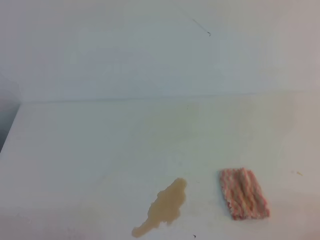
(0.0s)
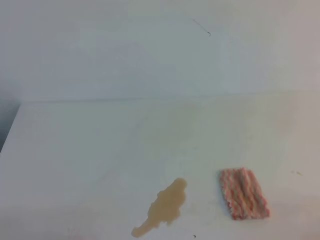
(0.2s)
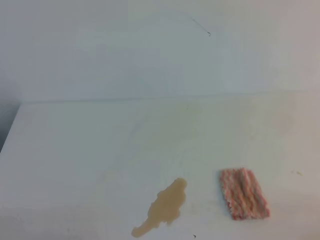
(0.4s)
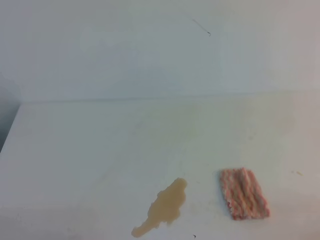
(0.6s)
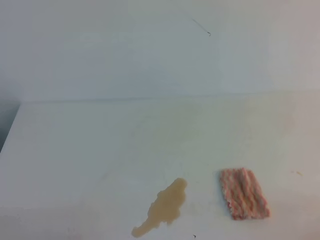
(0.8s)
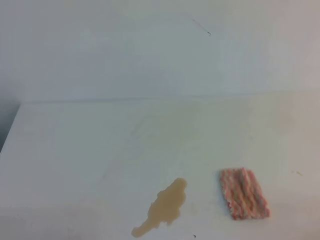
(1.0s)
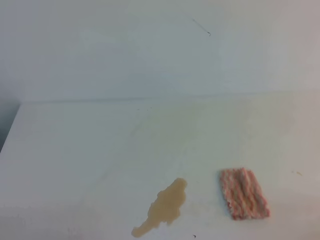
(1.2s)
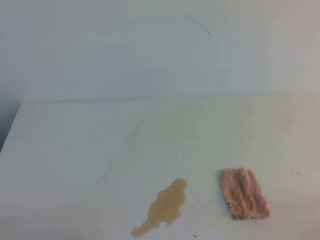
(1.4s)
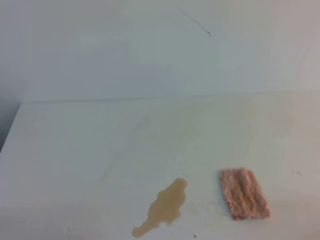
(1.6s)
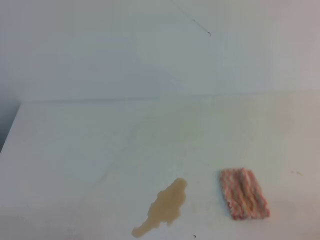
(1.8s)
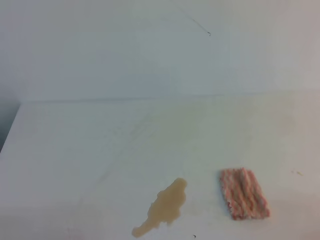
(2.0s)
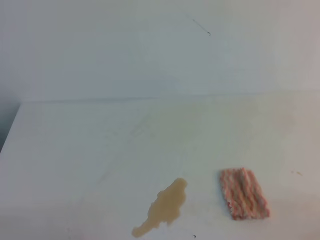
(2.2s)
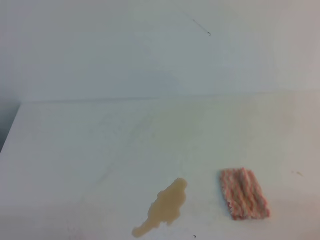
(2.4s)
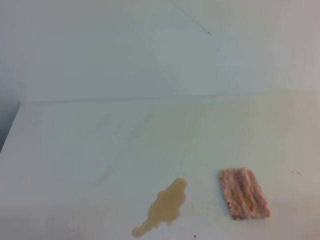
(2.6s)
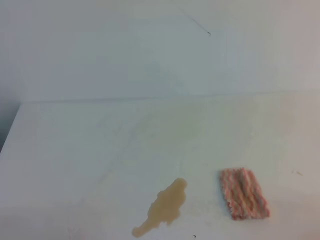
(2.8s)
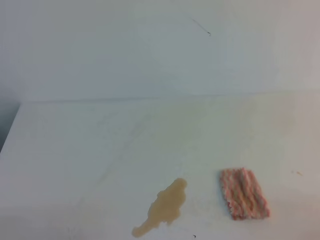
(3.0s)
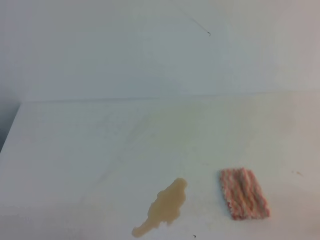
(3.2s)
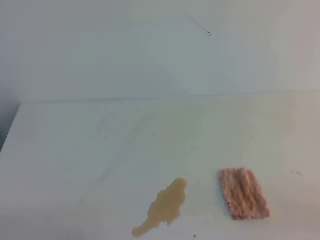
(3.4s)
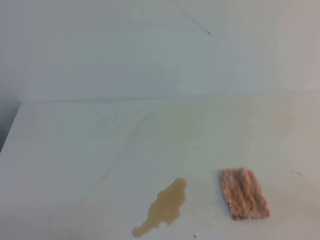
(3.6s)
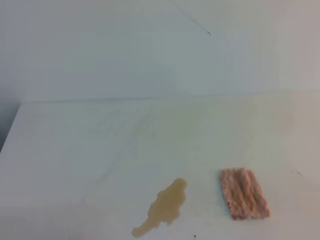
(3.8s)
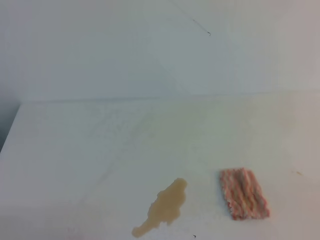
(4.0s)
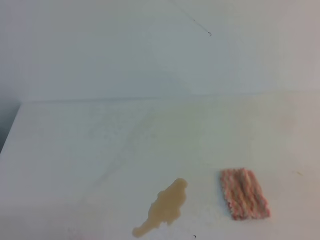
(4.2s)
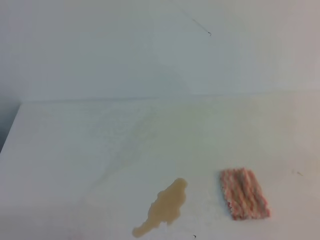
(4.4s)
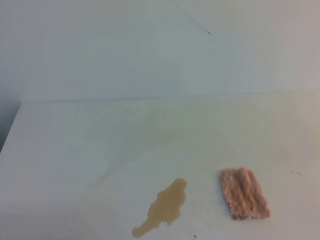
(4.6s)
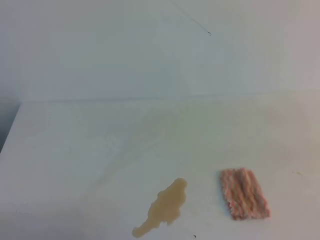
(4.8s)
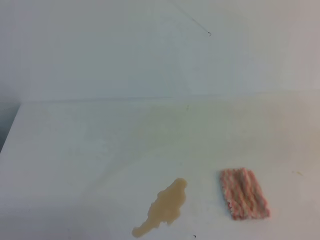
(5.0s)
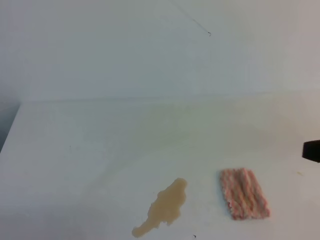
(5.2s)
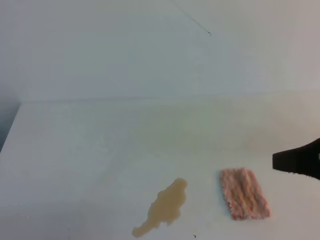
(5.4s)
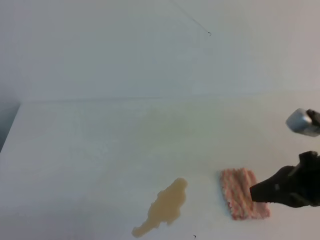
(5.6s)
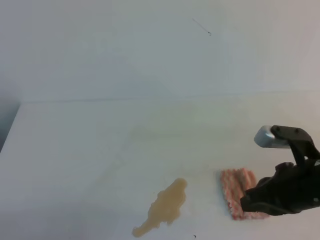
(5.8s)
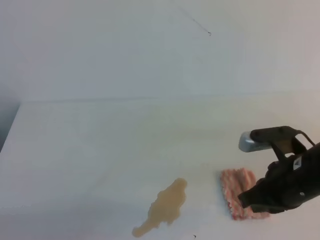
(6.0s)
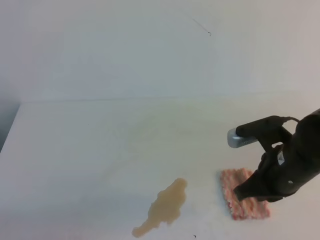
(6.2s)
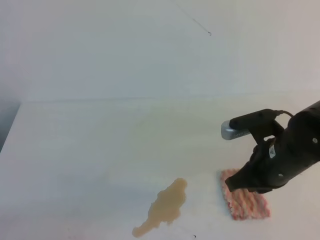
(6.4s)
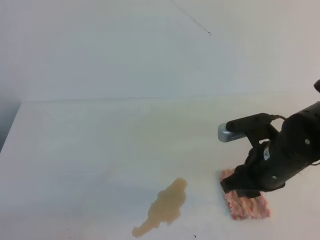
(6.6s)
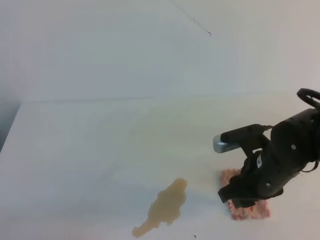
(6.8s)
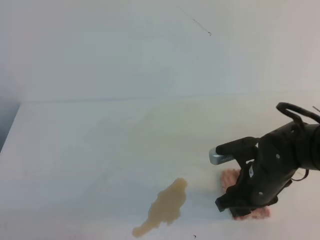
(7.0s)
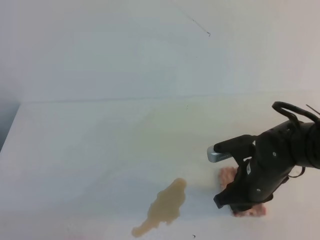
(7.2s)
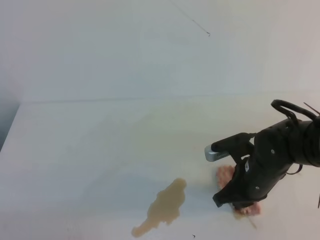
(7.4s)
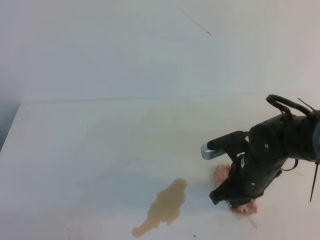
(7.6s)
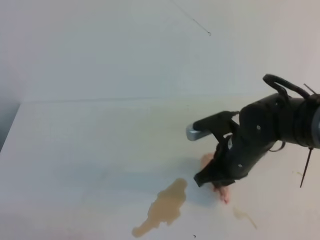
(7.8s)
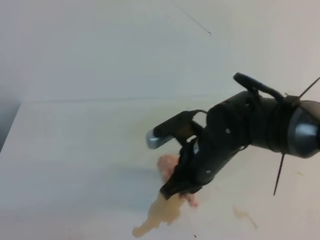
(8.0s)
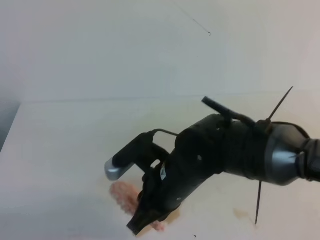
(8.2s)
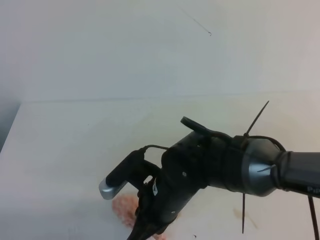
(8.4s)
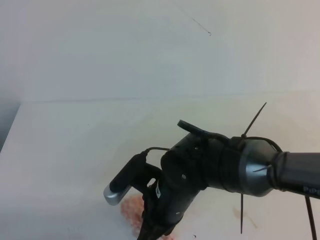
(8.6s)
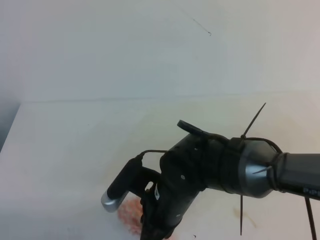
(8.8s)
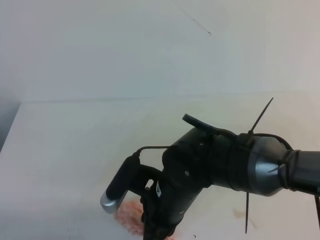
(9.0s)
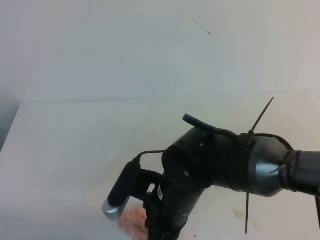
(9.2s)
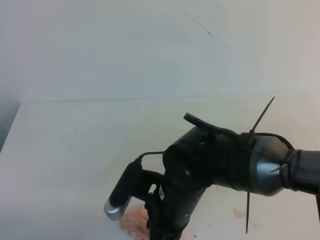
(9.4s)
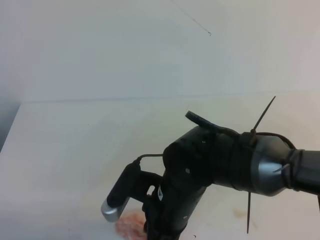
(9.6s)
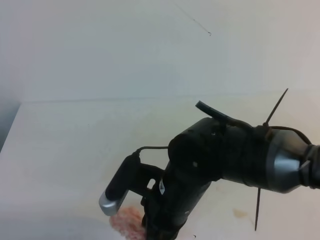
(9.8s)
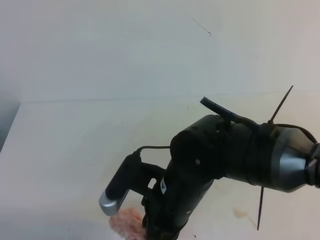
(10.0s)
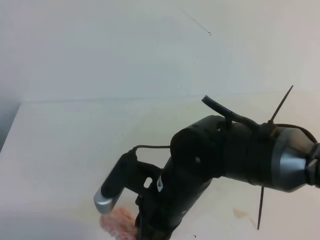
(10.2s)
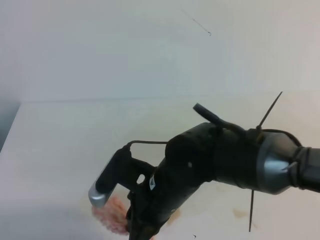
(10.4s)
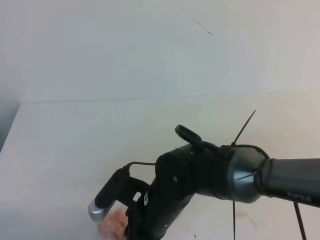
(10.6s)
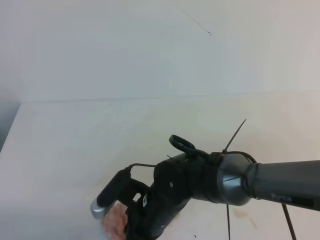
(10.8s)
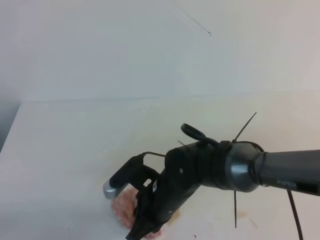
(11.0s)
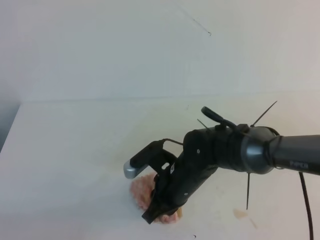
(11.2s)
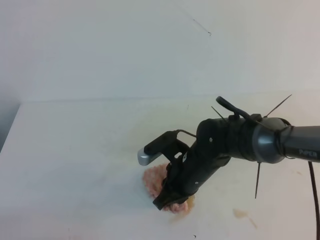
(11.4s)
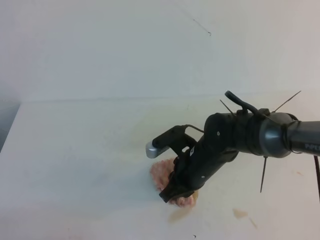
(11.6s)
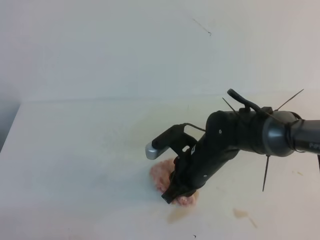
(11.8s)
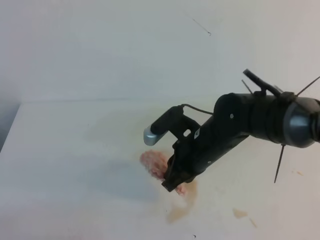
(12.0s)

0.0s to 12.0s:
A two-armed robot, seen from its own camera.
0.0s to 3.0s: Neither gripper changes place.
4.4s to 6.0s: The right gripper goes roughly 25 cm forward, to the left and downward.
6.0s to 7.6s: The right gripper travels downward, forward and to the left by roughly 10 cm, and opens and closes again.
7.6s to 9.0s: The right gripper moves to the left, backward and upward, about 15 cm.
9.0s to 10.4s: There are only small adjustments of the grippers.
10.4s to 12.0s: The right gripper travels forward and to the right by some 10 cm.

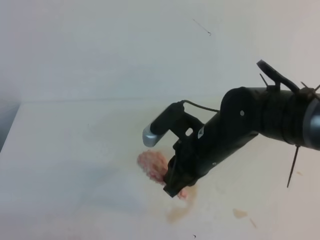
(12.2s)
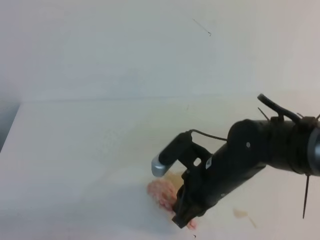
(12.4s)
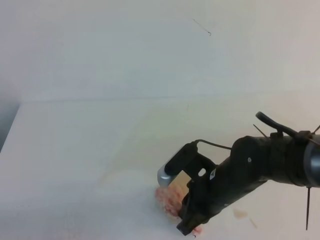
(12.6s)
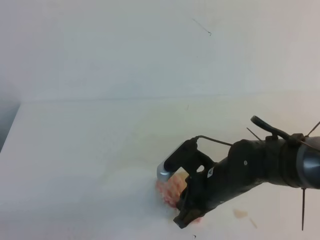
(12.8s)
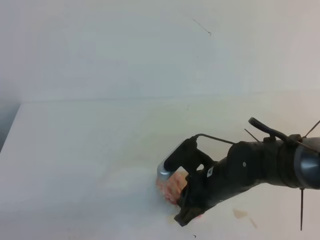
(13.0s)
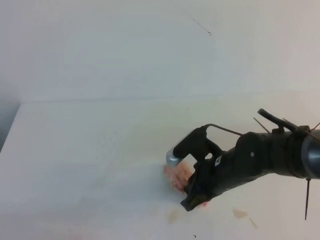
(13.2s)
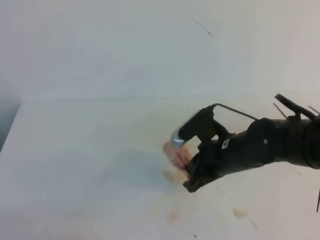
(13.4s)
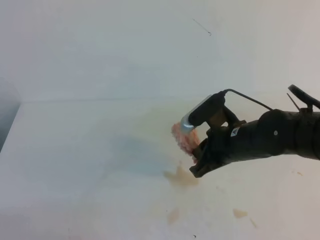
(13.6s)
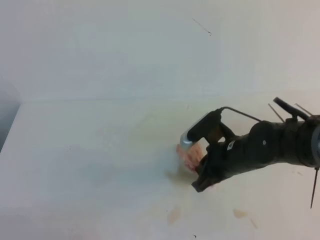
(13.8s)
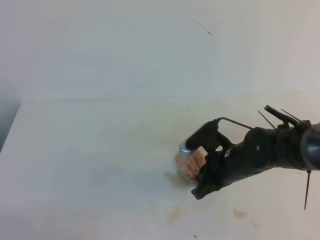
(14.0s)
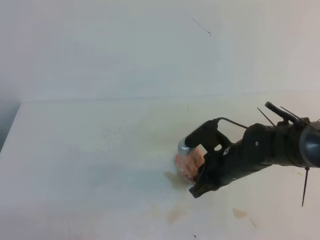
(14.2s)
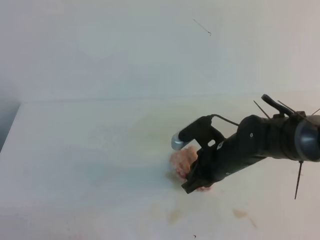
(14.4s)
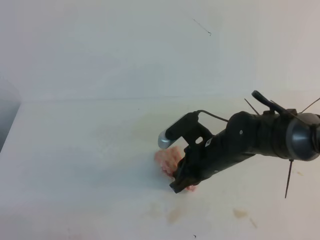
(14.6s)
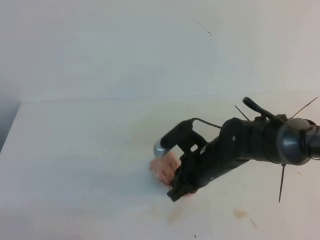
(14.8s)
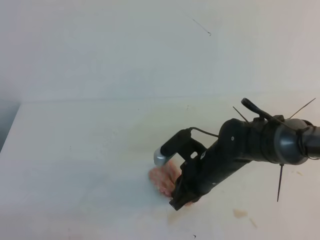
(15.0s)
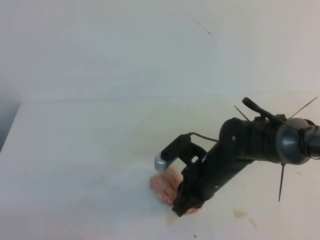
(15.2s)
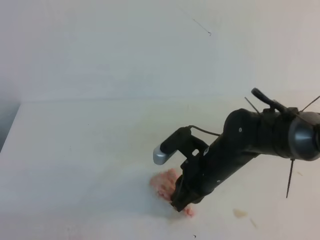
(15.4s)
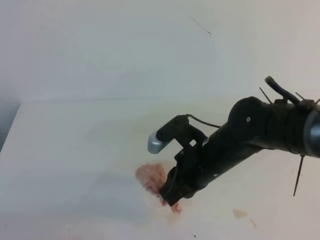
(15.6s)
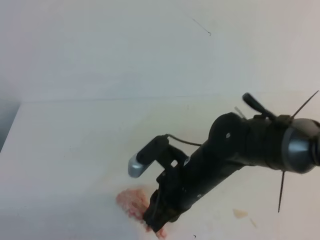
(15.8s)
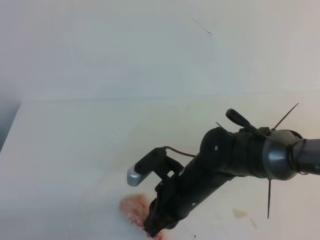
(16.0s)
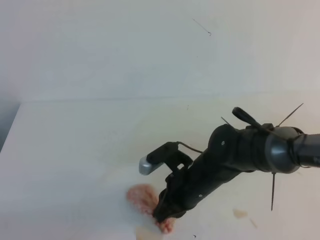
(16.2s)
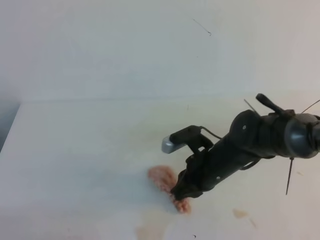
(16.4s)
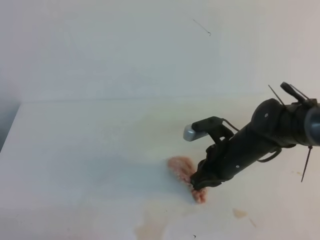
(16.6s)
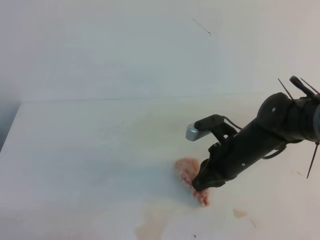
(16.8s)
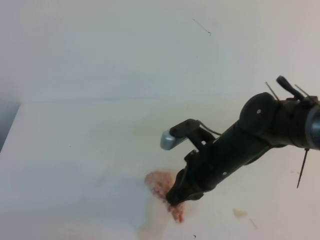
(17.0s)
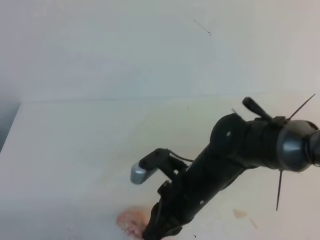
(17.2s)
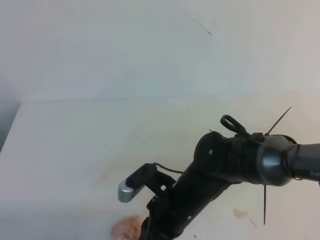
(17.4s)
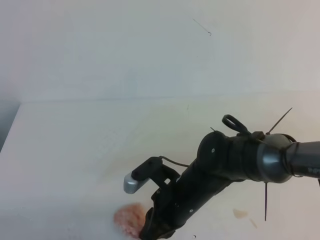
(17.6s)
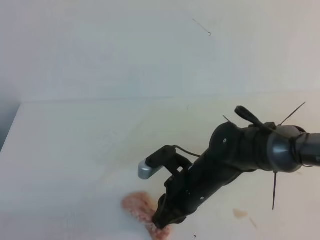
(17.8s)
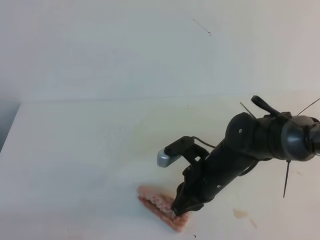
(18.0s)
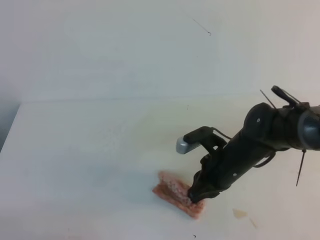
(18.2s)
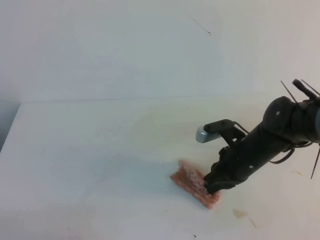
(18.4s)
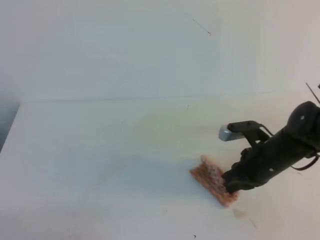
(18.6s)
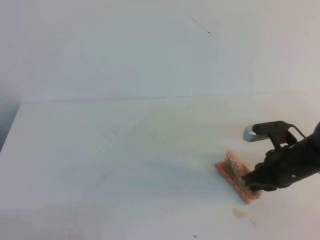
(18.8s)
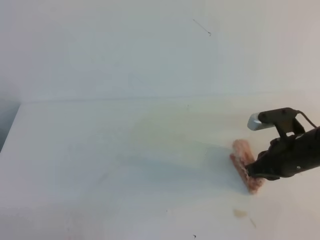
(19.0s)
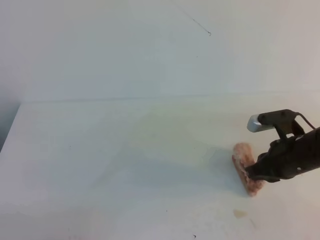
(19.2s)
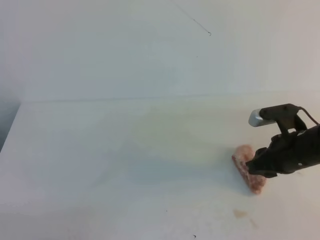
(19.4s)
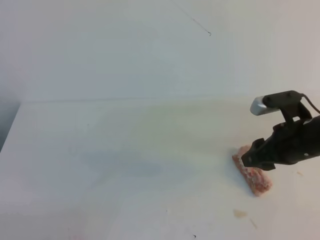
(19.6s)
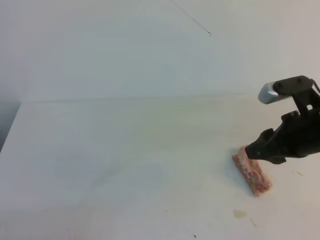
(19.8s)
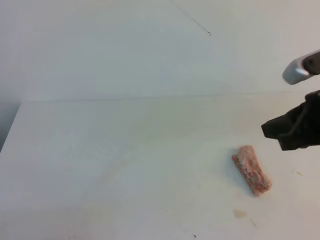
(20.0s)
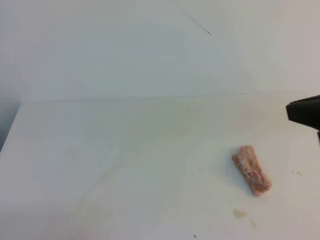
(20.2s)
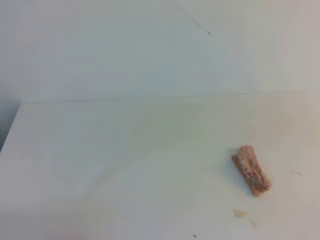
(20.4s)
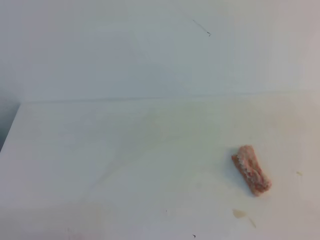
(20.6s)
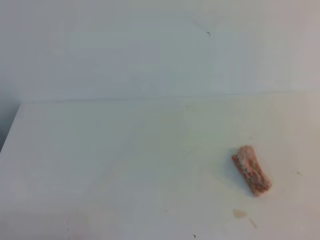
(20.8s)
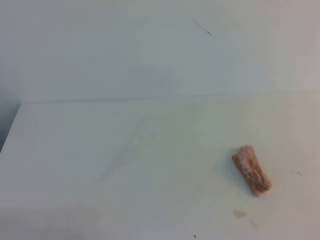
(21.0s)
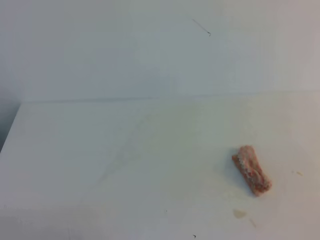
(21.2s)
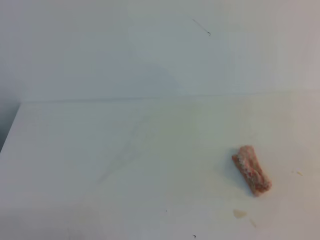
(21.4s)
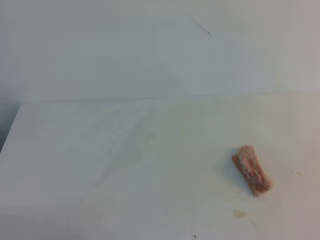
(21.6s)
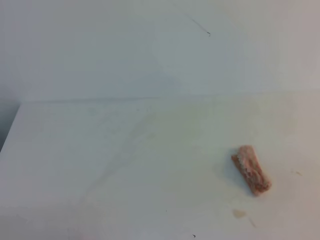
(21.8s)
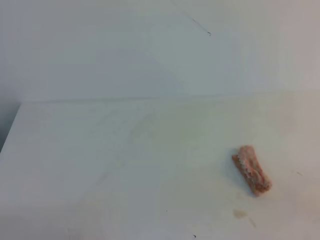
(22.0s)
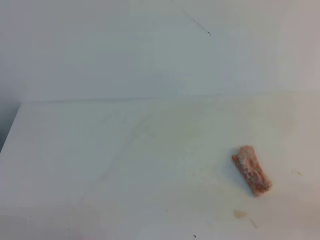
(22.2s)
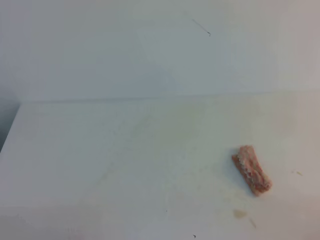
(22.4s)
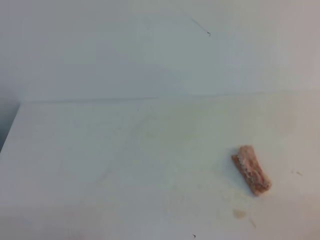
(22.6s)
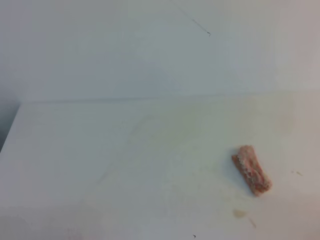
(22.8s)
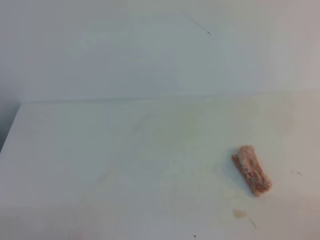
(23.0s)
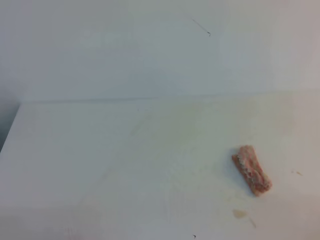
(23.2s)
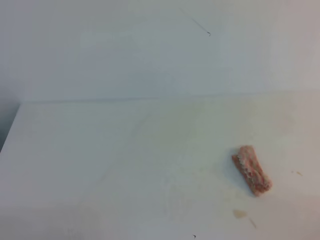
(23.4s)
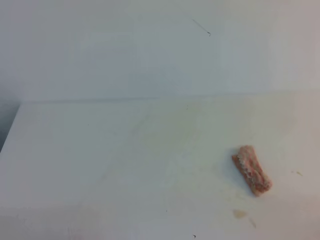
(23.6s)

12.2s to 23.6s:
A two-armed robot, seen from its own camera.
12.2s to 13.6s: The right gripper ends up some 5 cm from where it was.
13.6s to 15.0s: The right gripper changes place by some 5 cm.
17.8s to 19.4s: The right gripper travels to the right by some 15 cm, and opens.
19.4s to 20.8s: The right gripper is displaced backward and upward by roughly 25 cm, and closes its fingers.
